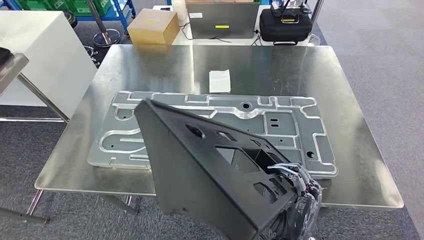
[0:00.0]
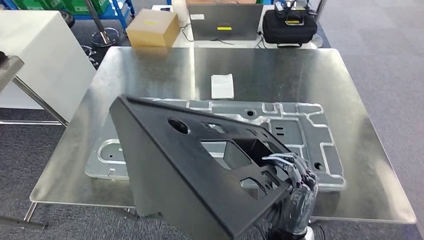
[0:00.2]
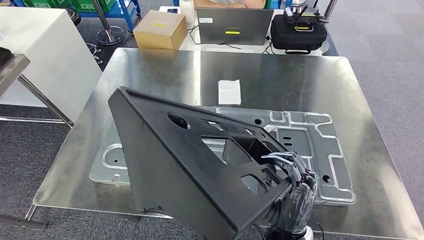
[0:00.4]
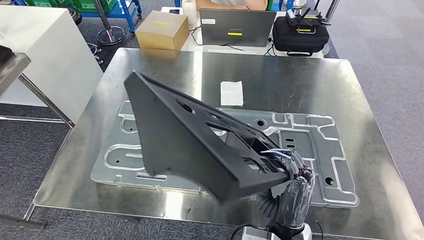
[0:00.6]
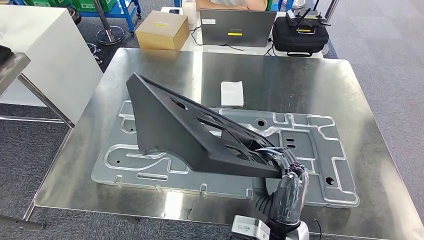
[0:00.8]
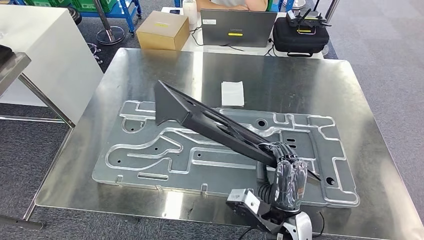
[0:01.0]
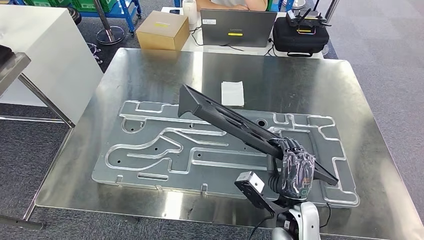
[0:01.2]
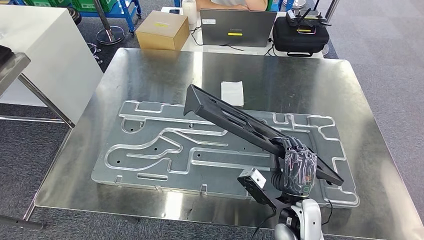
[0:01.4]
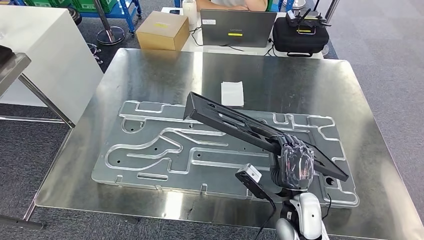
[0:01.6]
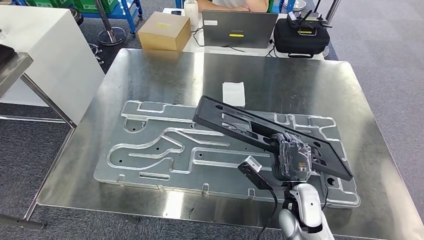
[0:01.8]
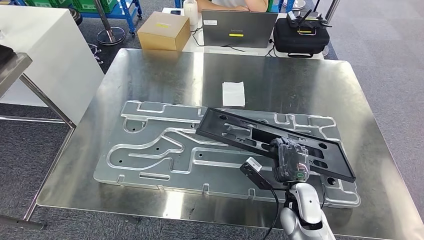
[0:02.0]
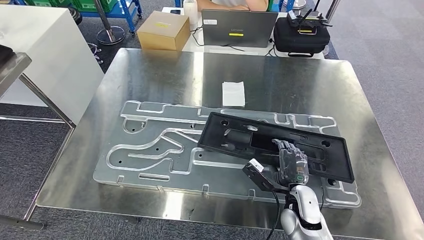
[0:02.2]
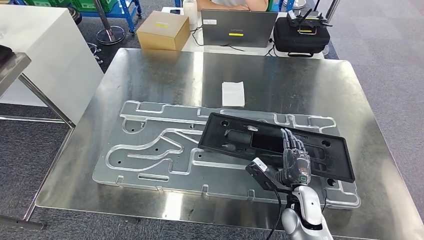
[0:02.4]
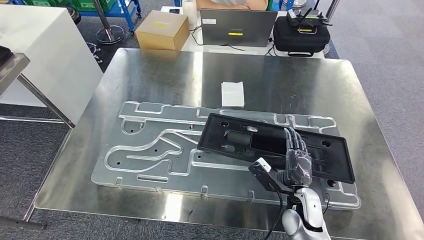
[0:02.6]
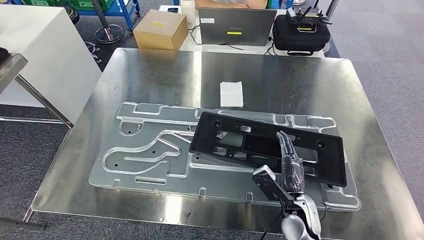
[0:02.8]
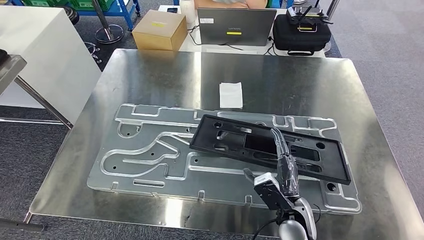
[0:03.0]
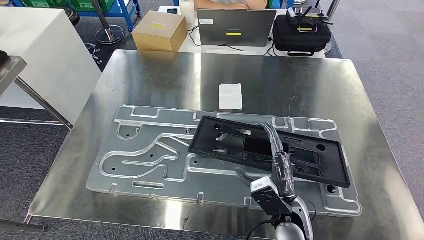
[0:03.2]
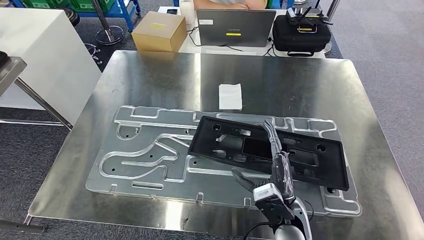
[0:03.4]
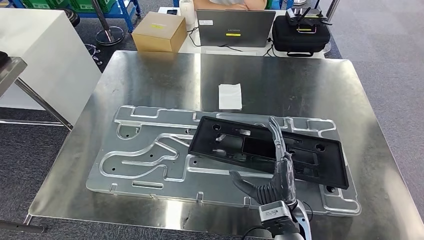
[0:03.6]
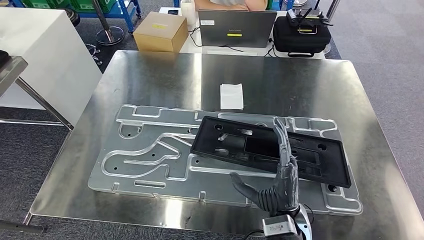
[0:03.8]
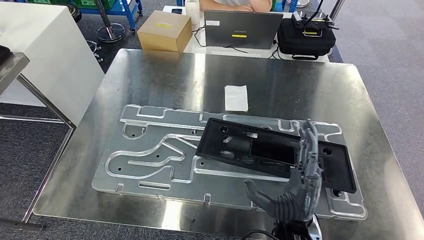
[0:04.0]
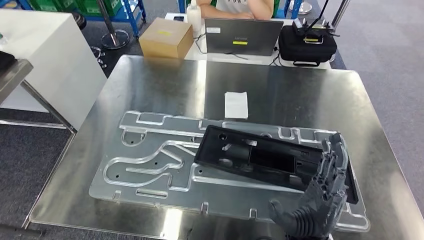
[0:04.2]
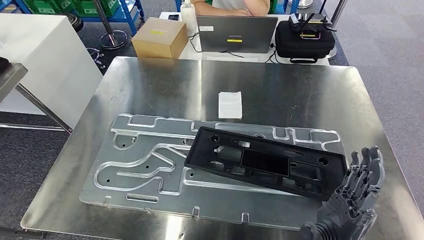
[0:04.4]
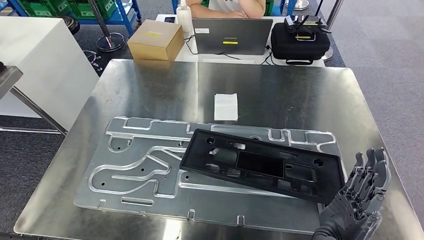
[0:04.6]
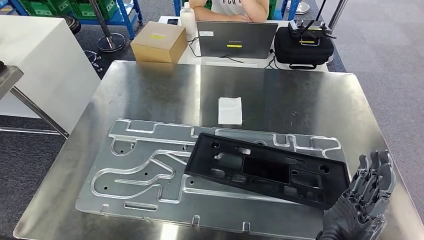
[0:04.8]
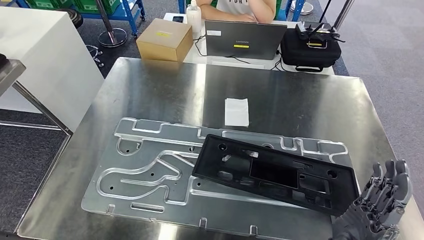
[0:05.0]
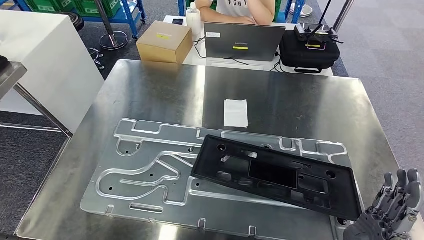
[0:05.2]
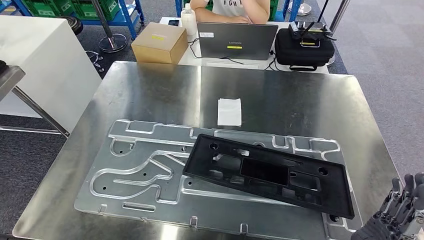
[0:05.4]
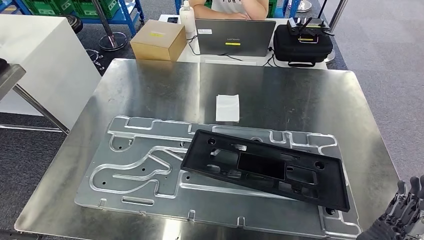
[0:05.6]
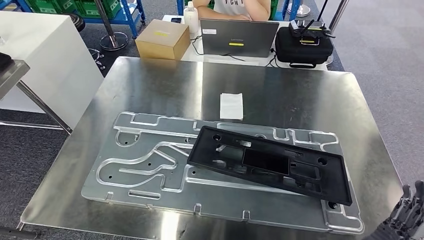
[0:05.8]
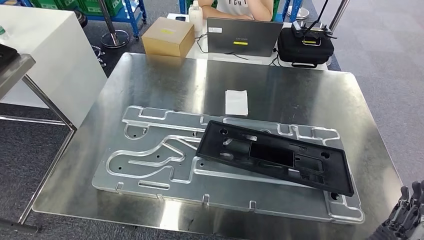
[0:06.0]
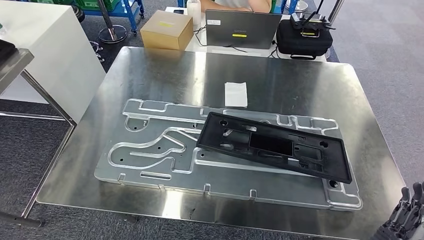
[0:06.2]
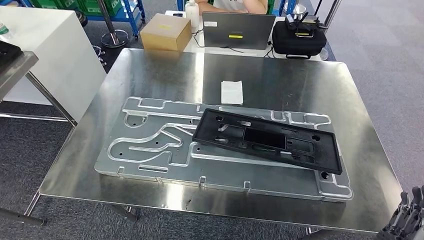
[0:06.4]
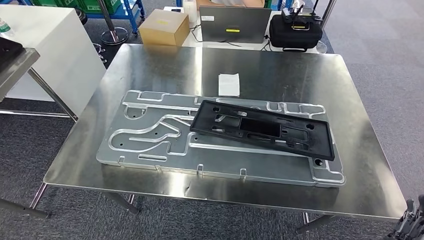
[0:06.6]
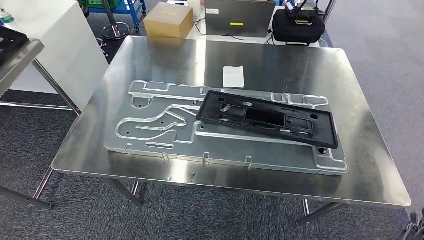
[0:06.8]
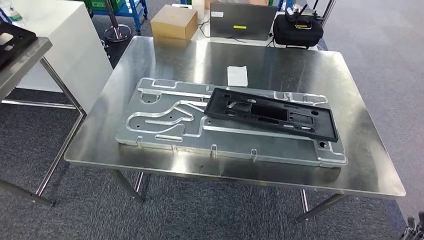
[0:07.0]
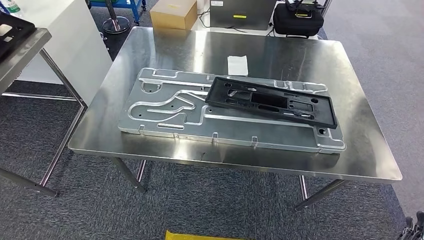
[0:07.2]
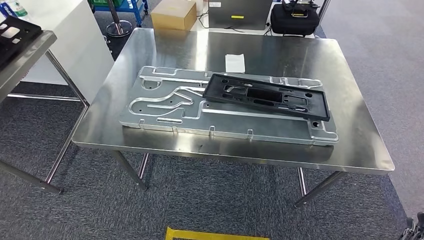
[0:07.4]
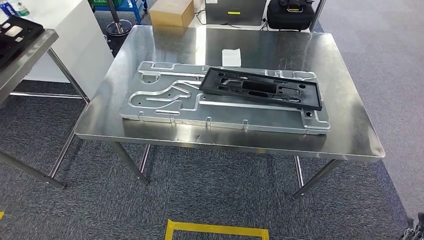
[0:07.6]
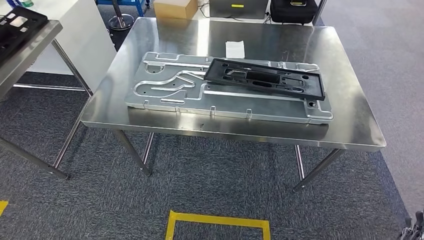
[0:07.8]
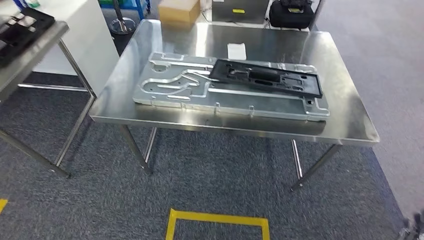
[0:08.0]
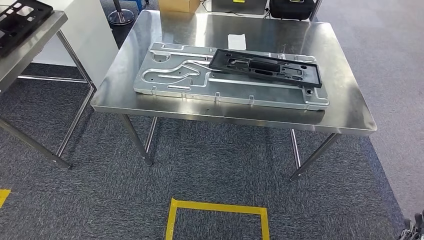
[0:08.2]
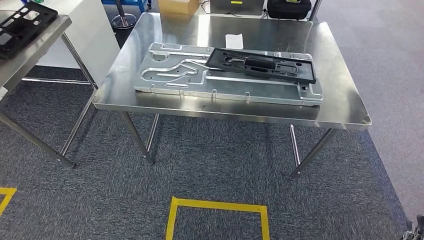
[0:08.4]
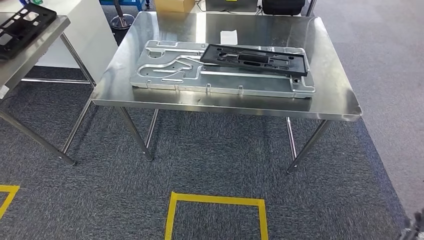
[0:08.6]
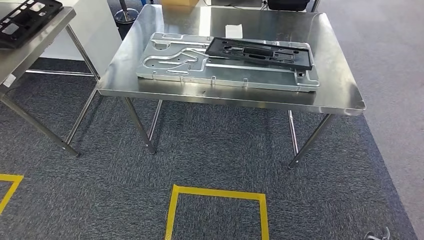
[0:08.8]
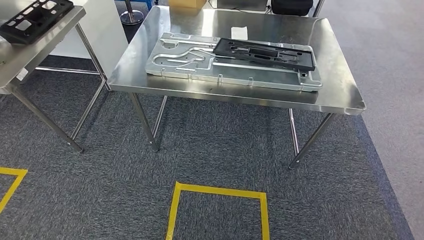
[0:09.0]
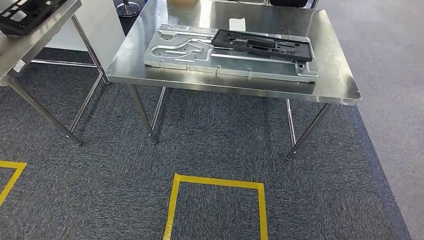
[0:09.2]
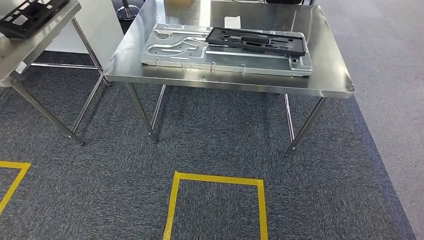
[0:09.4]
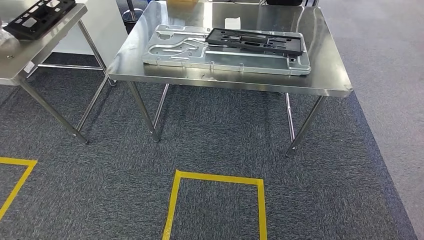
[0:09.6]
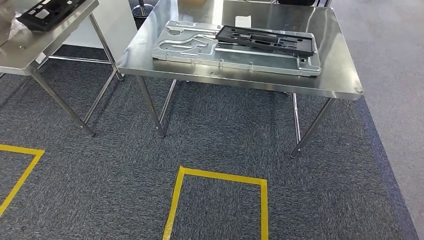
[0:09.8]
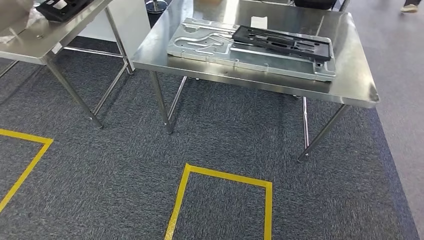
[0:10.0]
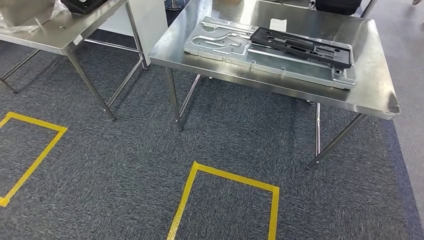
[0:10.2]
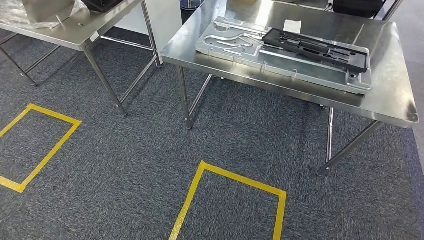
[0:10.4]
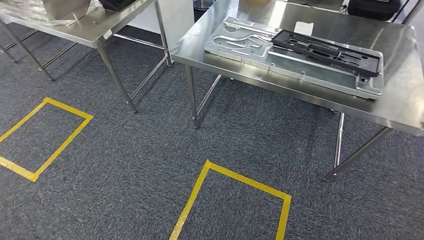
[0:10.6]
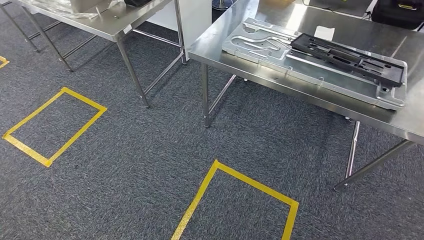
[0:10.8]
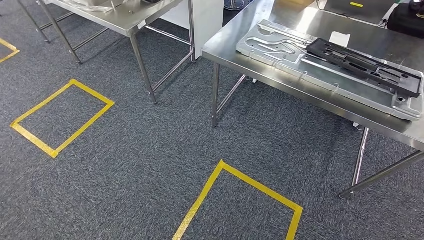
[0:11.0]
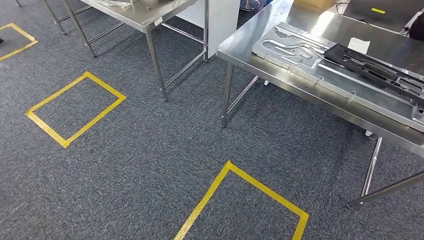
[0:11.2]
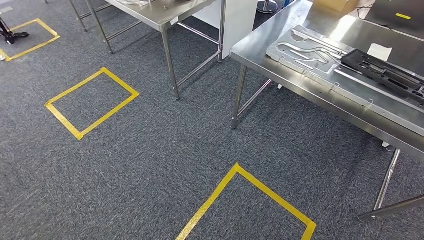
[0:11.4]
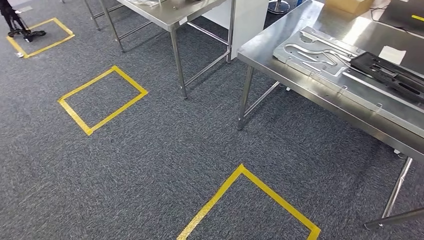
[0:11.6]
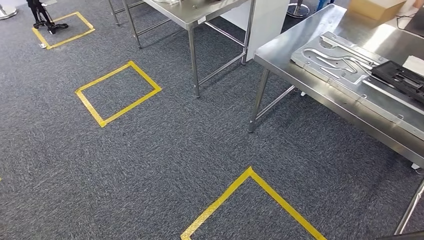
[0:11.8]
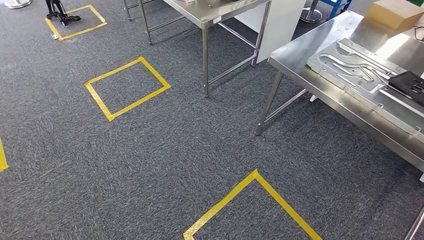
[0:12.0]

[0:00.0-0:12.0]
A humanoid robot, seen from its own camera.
Step, 0:00.0 to 0:08.4: Insert the large material into the corresponding hole on the workbench.

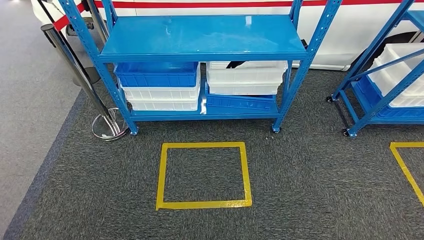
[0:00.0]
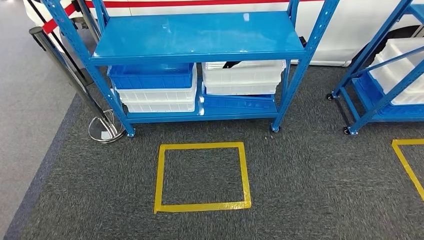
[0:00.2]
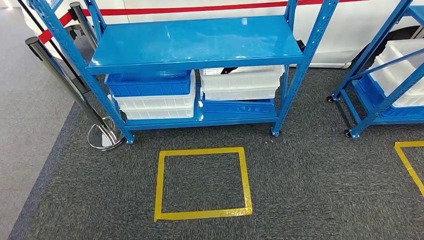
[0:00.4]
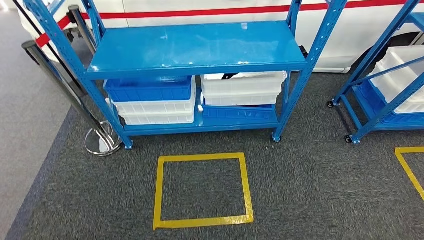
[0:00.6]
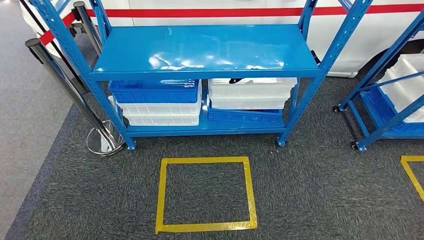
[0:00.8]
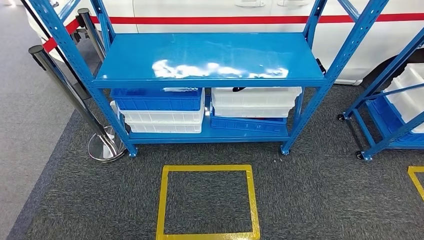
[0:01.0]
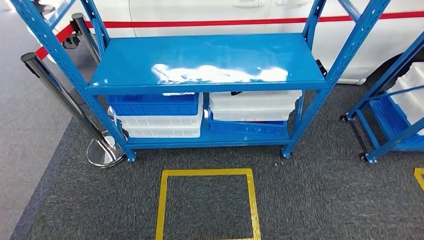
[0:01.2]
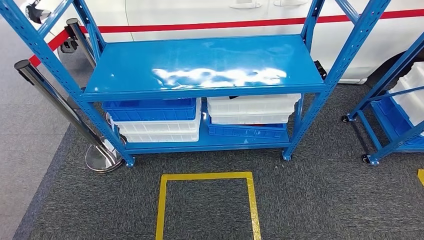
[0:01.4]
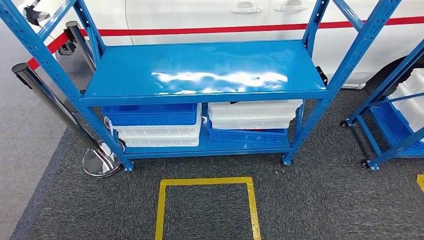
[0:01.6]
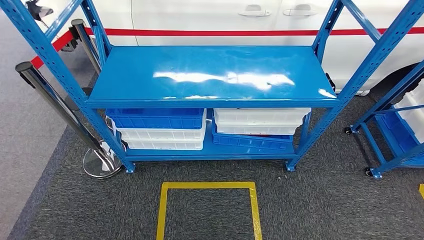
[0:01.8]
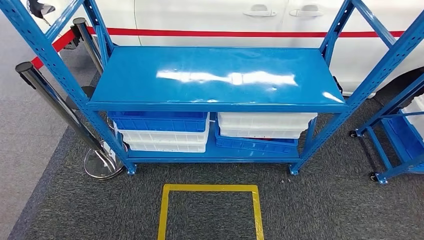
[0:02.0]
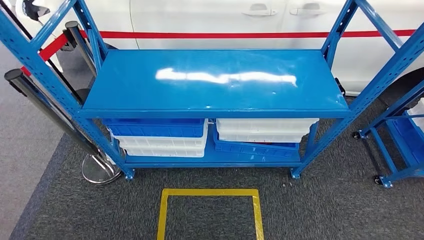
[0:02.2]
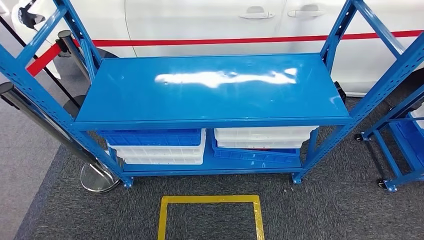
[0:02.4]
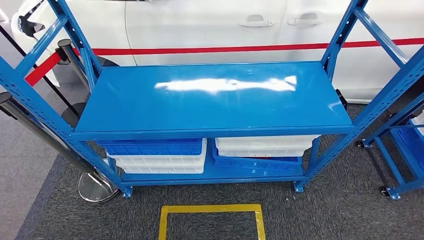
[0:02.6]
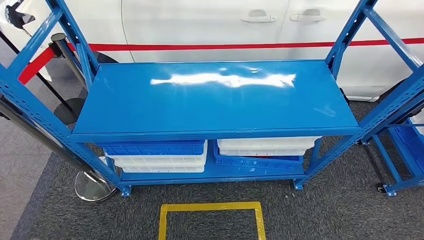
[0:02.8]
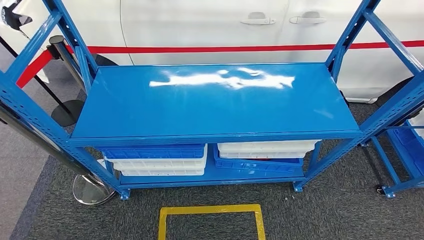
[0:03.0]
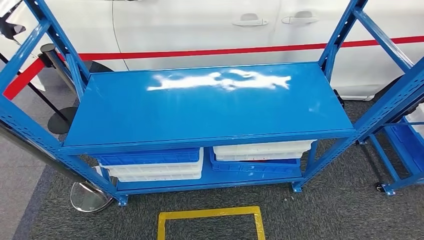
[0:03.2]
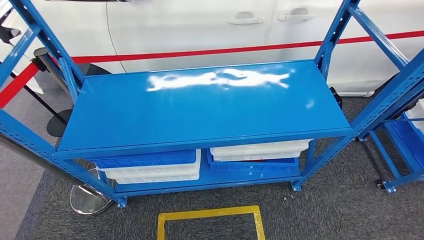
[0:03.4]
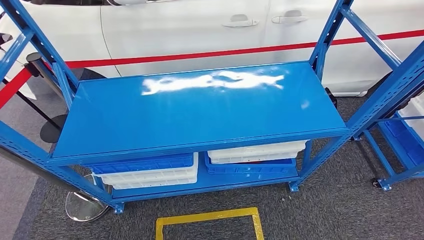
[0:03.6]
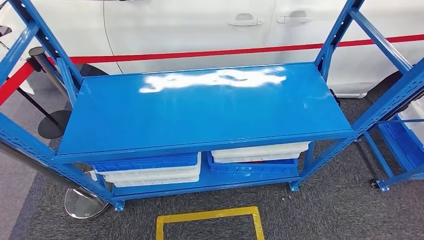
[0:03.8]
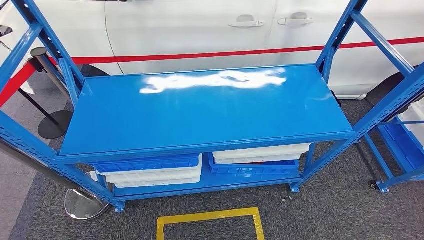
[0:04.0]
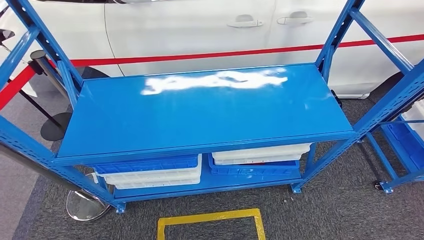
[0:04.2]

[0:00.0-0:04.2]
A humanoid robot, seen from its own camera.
Step, 0:00.0 to 0:04.2: Move to the initial position of the shelf.

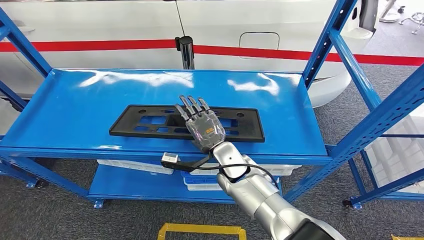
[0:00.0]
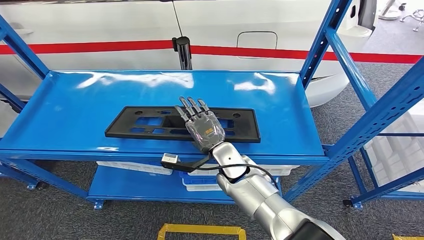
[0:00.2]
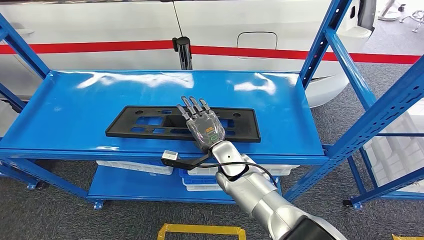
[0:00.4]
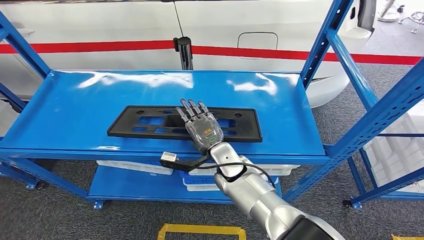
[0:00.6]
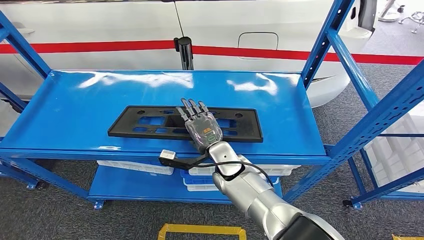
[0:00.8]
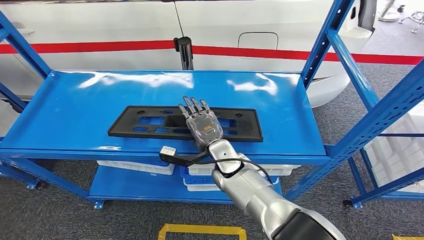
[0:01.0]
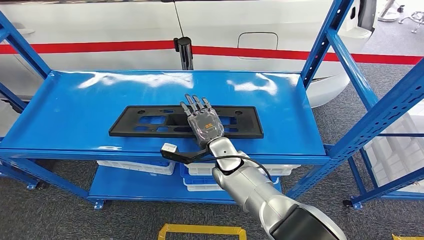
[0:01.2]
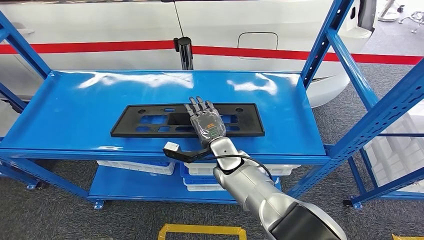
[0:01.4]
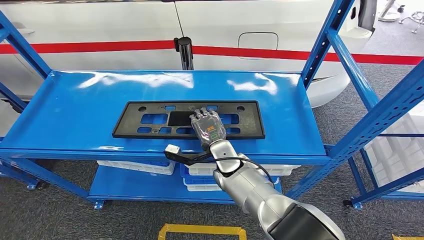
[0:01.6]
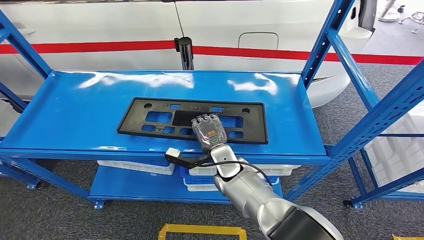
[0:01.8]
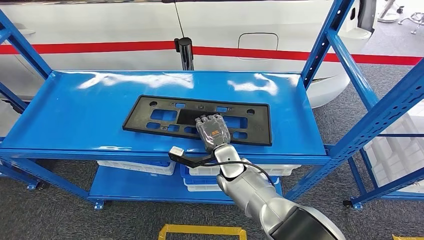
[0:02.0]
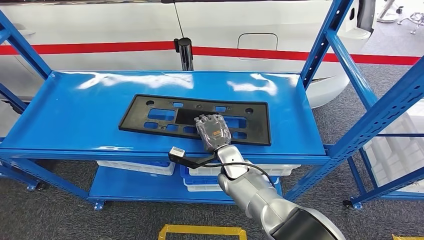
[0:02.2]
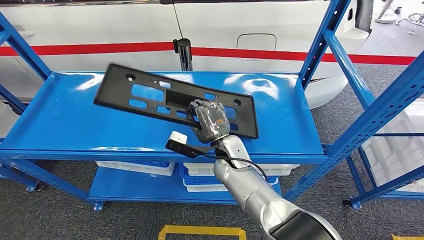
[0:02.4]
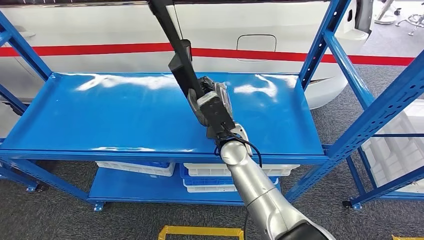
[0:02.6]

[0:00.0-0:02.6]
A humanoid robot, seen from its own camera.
0:00.0 to 0:01.2: The hands stay close to where they were, moving slightly.
